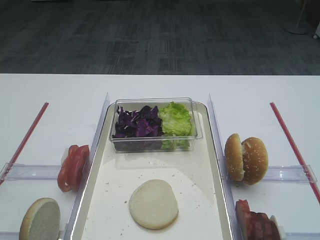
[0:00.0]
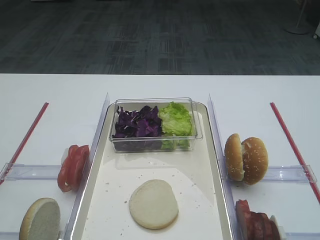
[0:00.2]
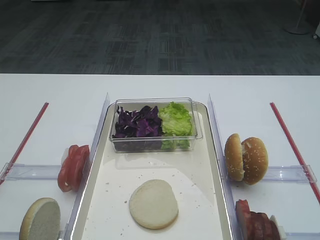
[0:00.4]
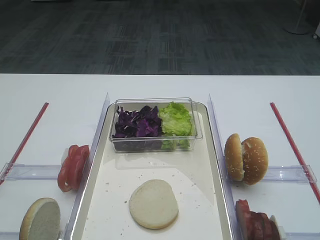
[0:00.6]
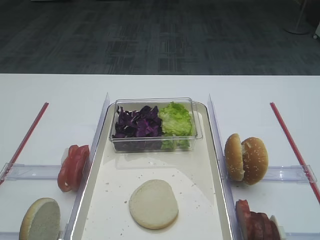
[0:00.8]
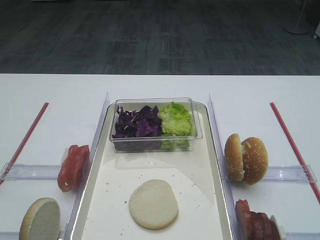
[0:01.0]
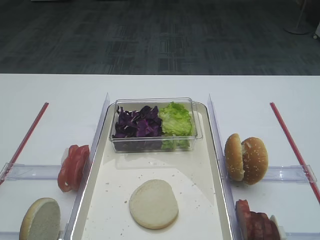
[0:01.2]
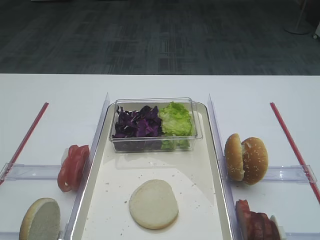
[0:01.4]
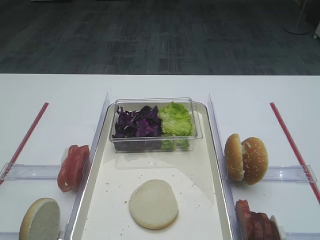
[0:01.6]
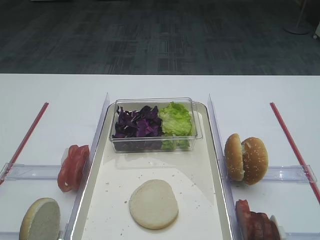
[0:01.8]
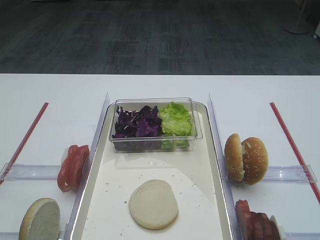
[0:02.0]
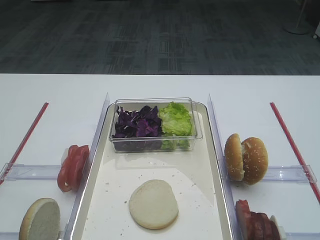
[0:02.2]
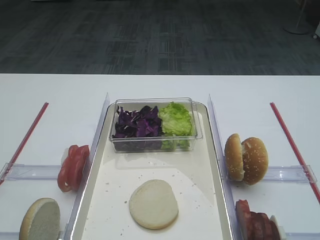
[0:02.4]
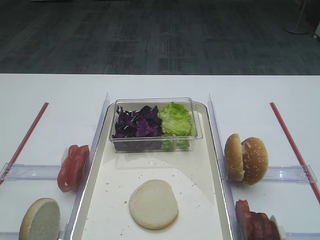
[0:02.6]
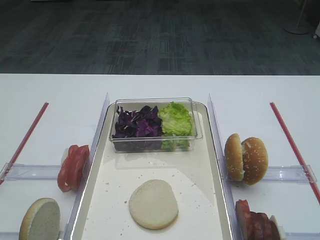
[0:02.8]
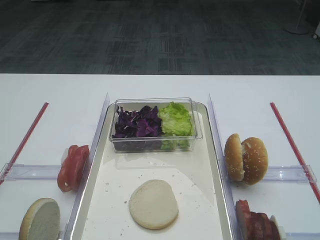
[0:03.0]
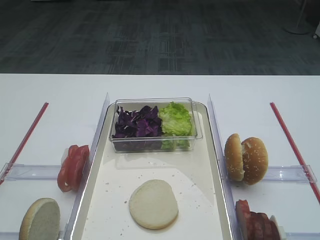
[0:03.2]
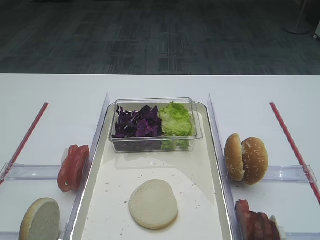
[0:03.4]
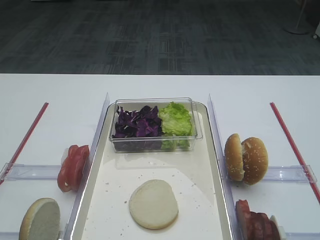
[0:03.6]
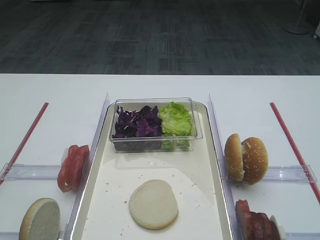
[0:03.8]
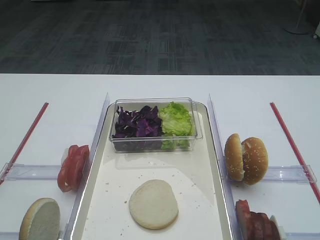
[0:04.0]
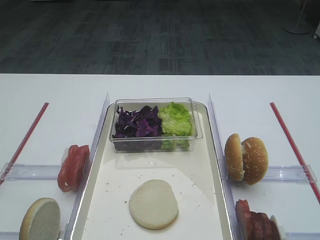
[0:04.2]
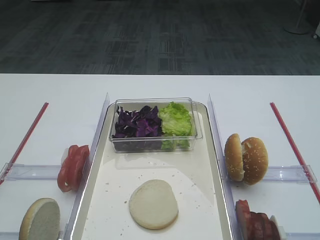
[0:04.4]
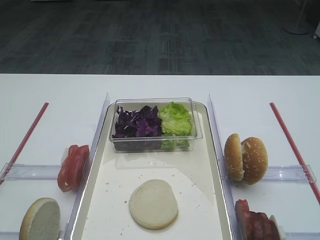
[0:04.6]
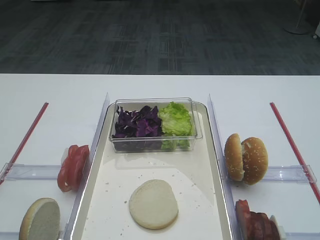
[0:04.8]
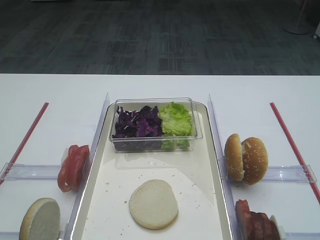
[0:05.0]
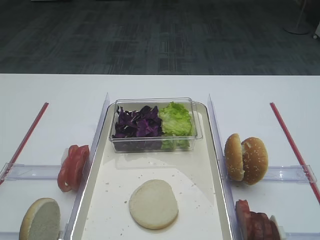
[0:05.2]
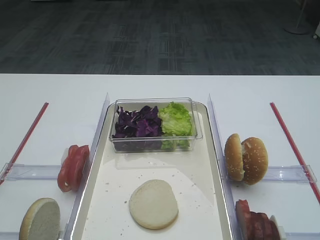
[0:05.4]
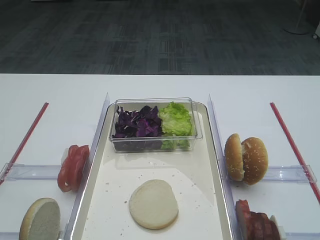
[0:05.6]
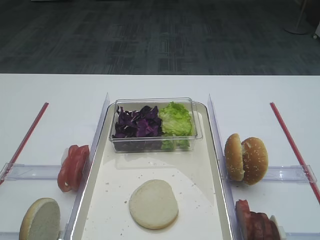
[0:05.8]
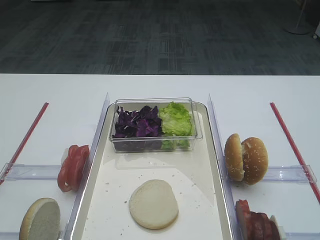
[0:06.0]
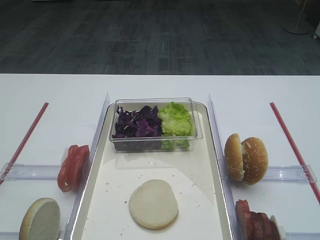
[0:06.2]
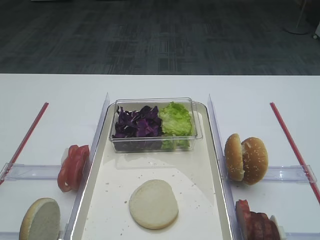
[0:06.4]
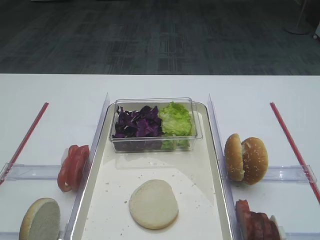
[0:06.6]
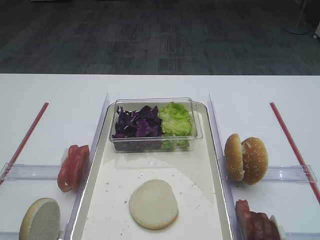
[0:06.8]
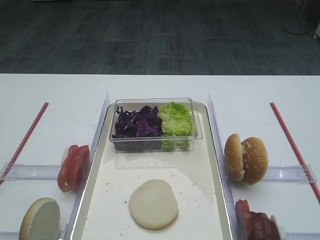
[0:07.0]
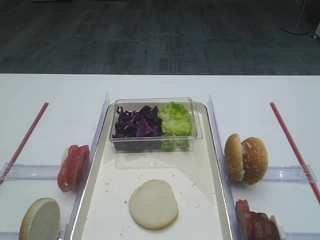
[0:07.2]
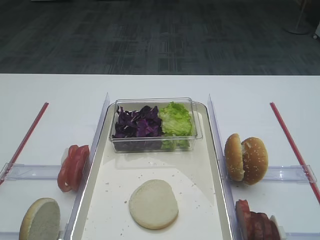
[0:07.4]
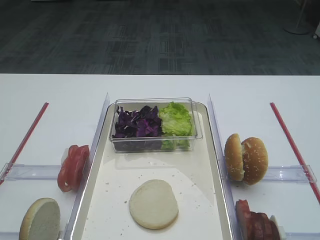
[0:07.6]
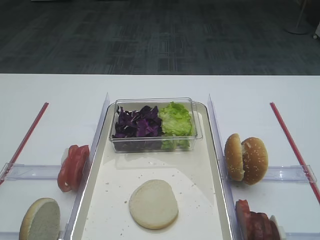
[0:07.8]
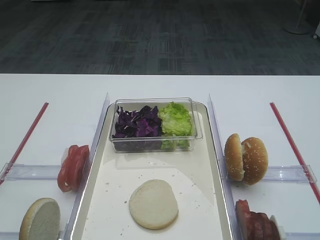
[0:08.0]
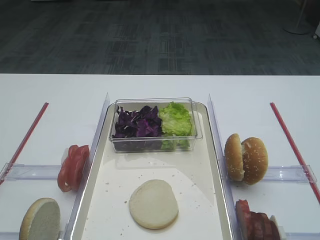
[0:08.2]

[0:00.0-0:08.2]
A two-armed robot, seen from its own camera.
0:05.0 to 0:08.2: Both grippers stay put.

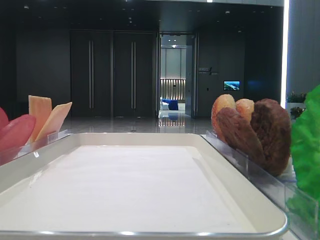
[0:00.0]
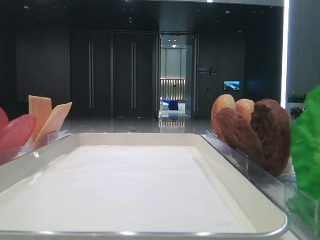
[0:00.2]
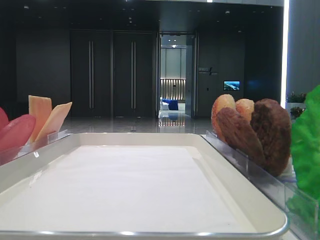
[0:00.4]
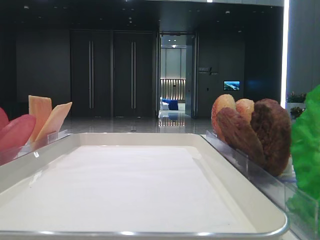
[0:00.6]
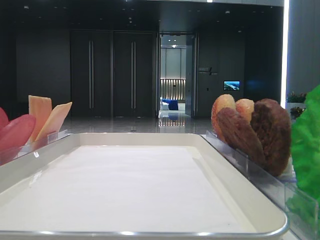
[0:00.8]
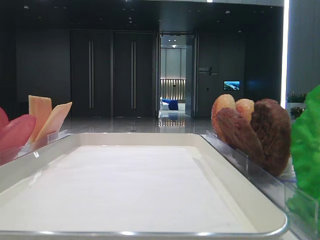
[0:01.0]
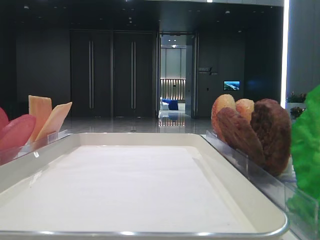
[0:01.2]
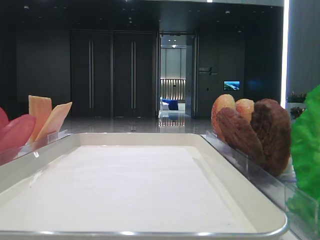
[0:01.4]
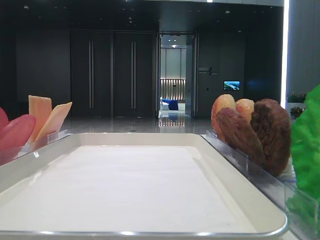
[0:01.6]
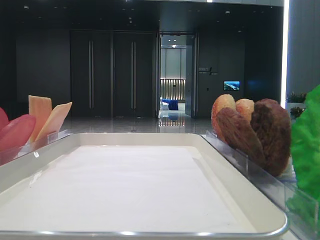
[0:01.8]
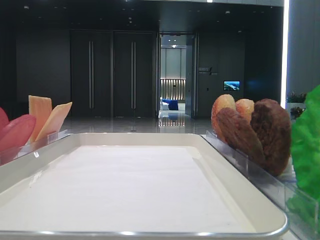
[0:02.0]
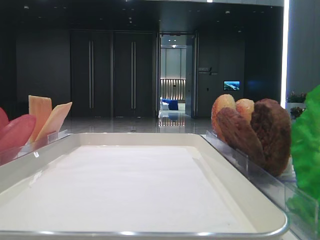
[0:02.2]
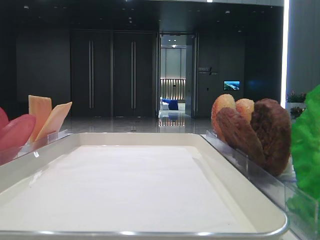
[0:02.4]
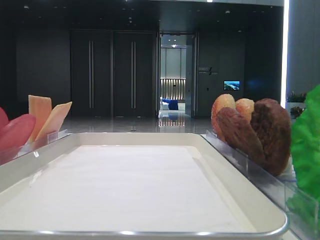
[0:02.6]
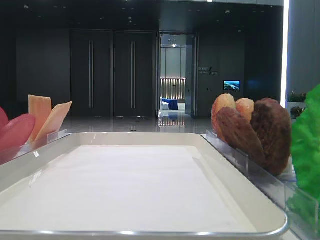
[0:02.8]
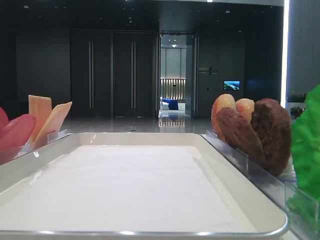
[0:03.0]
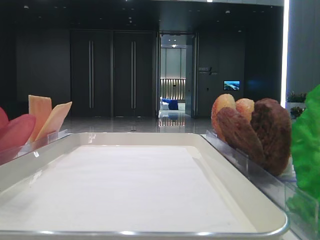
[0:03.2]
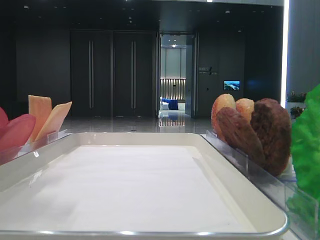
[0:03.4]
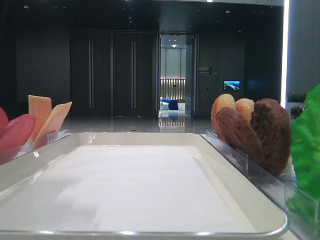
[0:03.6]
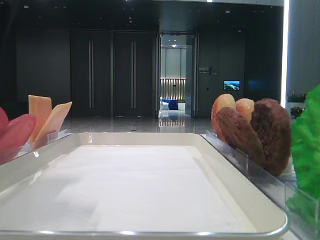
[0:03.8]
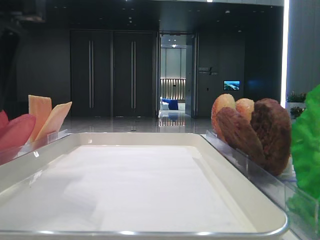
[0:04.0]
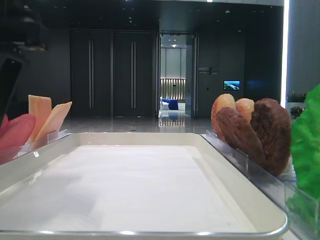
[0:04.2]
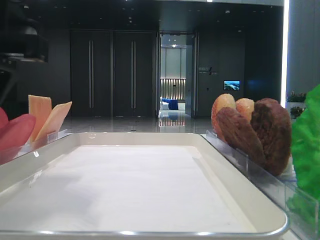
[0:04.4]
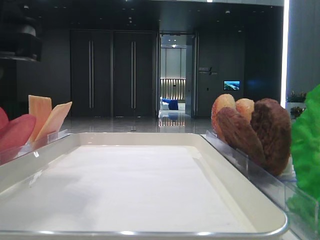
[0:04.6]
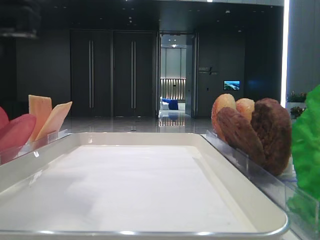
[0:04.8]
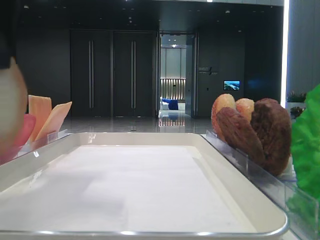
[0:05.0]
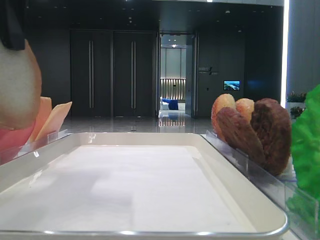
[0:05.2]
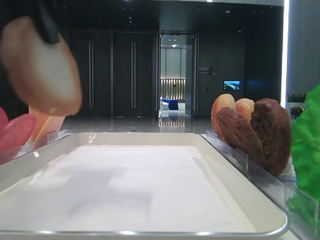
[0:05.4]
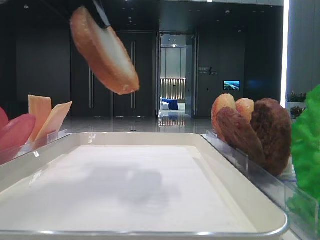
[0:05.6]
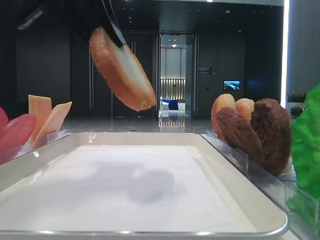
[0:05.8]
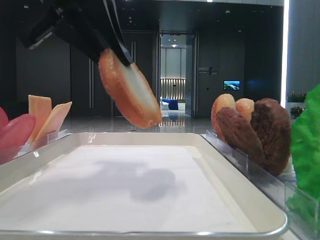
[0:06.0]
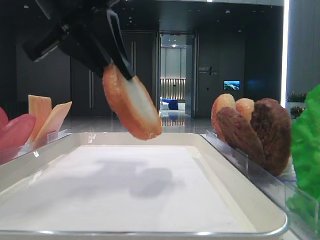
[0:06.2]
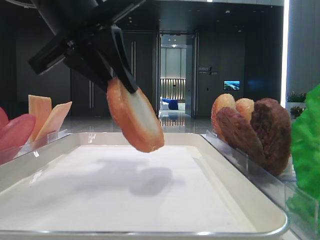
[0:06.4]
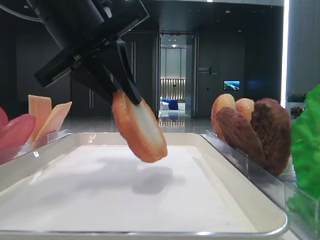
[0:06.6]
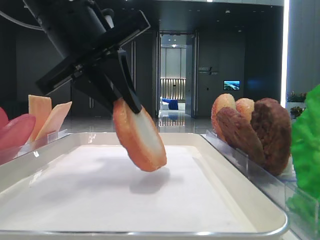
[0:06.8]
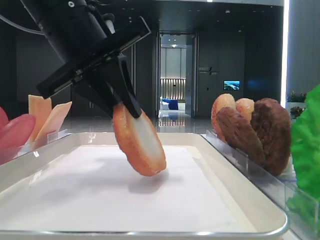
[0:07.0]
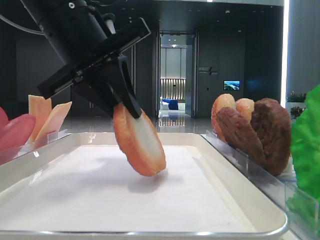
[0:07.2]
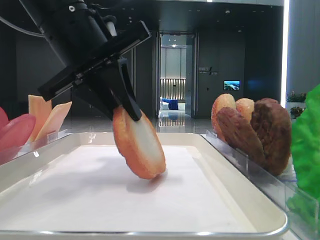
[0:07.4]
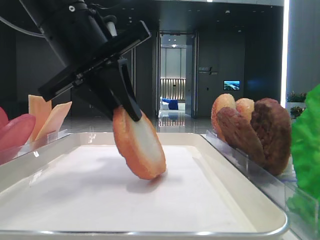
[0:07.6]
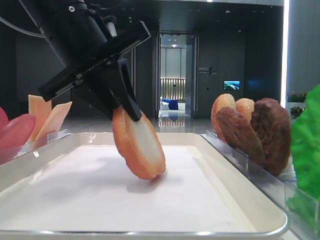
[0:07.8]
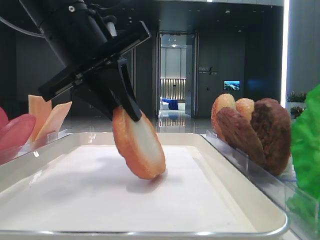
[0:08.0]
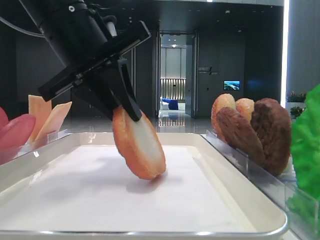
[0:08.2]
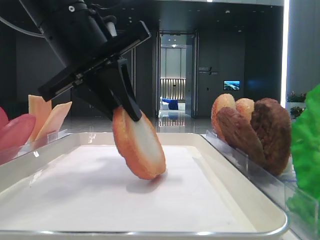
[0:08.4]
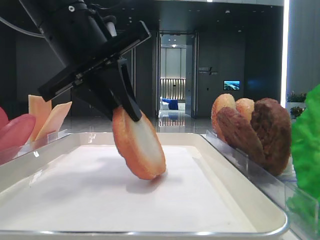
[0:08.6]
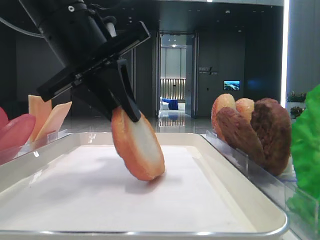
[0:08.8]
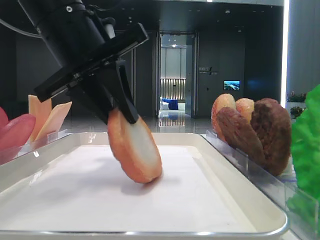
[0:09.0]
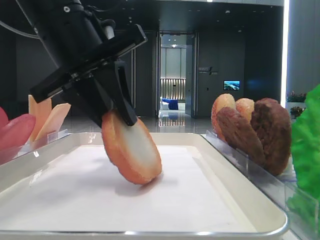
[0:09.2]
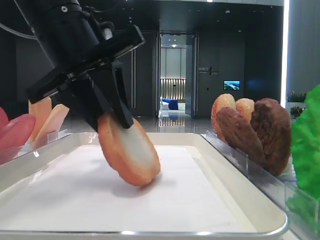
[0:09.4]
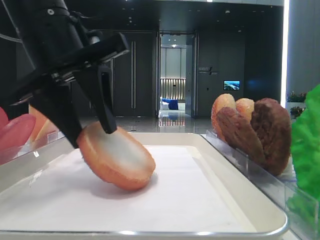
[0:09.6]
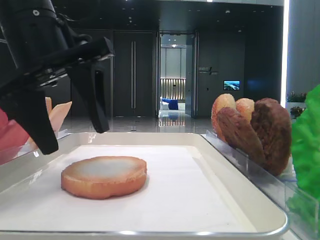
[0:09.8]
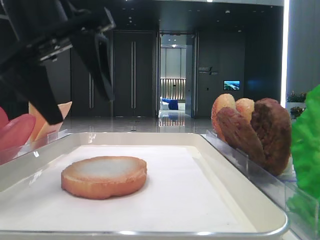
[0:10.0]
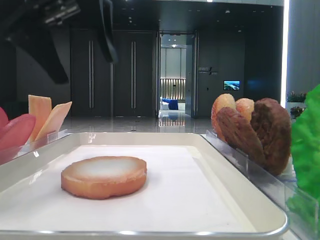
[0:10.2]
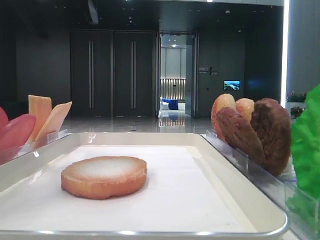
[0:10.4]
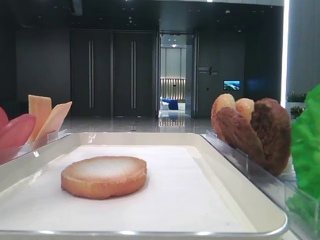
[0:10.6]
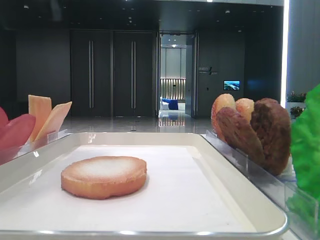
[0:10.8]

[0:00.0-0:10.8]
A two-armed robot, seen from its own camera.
Step, 0:00.0 to 0:04.4: Pick up the bottom bread with the left hand.
Step, 0:04.6 to 0:09.6: Place the bread on the tray with the left hand.
0:03.0 to 0:04.6: The left gripper travels to the right and downward by approximately 15 cm, and closes.
0:04.6 to 0:06.2: The left gripper is displaced forward by some 5 cm.
0:06.2 to 0:07.8: The grippers stay close to where they were, moving slightly.
0:07.8 to 0:09.2: The two grippers keep their place.
0:09.2 to 0:10.8: The left gripper is displaced upward and to the left by roughly 15 cm, and opens.

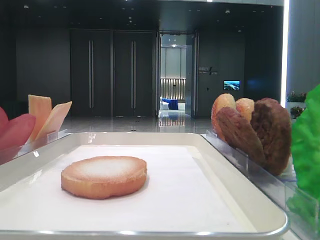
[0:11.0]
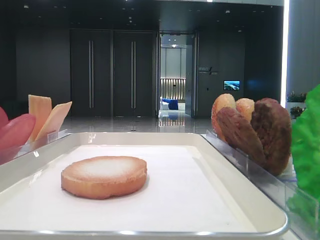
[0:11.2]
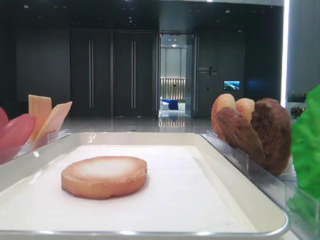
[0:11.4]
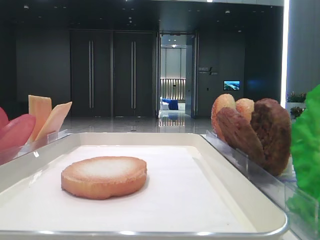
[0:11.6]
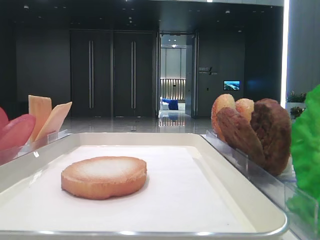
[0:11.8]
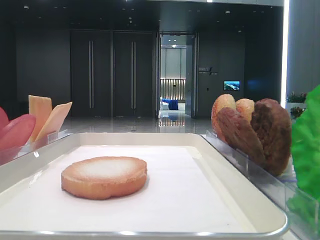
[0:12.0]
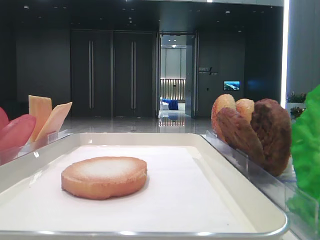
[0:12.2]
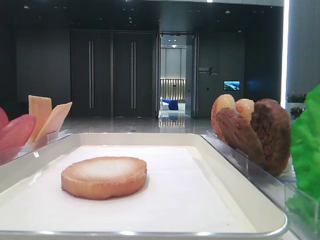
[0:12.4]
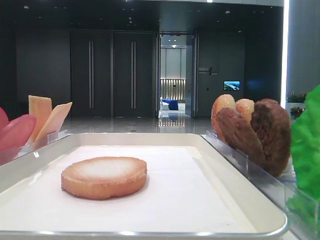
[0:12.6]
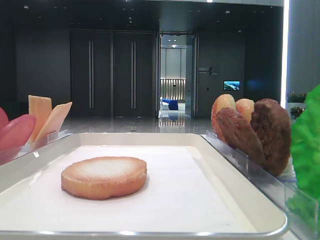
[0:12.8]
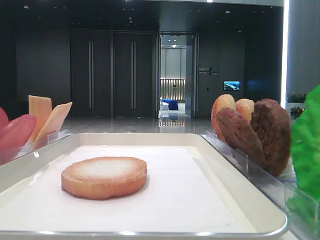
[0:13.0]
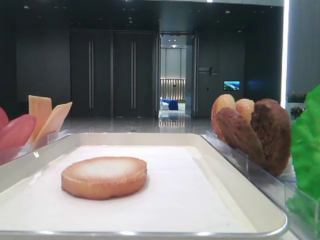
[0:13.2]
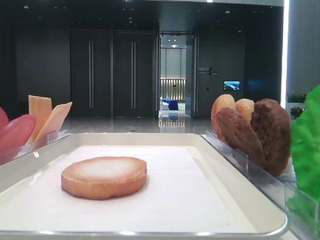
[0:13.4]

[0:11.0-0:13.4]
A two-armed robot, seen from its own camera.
0:11.0 to 0:12.2: The left gripper shifts approximately 30 cm backward.

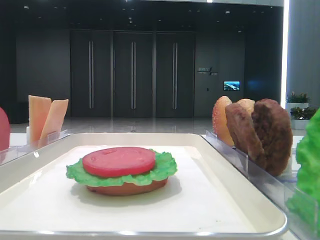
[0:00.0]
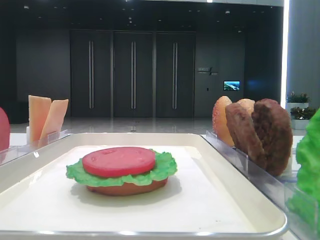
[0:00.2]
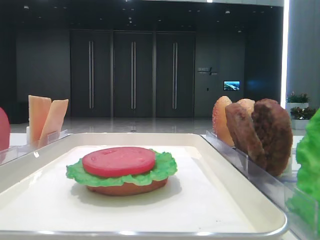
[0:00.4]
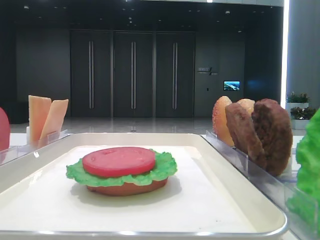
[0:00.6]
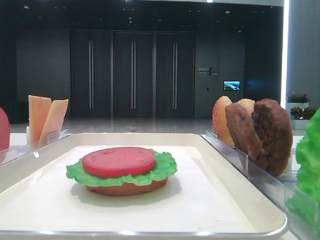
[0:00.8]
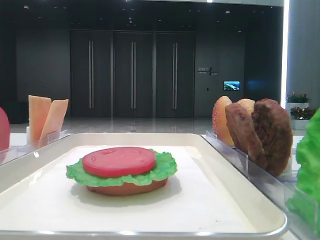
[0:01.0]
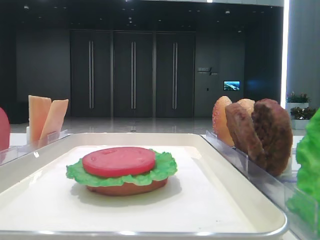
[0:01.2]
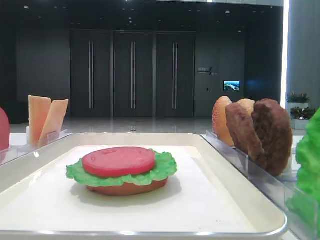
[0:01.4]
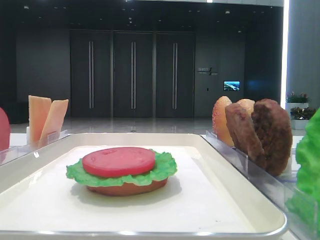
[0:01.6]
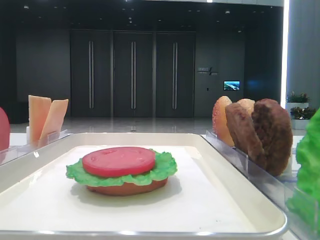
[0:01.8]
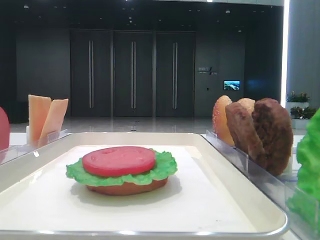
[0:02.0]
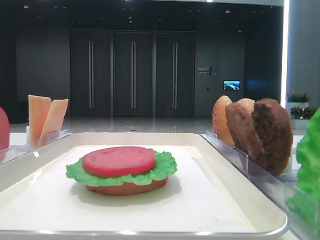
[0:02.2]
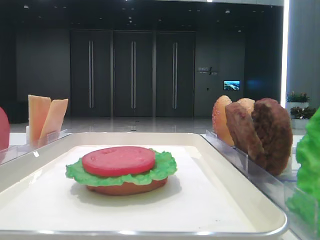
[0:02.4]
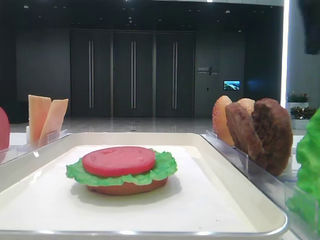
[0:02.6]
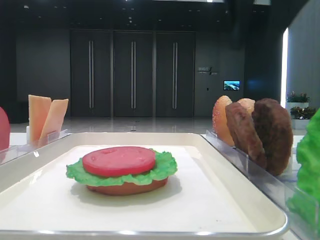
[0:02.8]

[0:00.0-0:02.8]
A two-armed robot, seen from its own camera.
0:01.4 to 0:02.8: The right gripper moves forward and to the left, roughly 35 cm.
